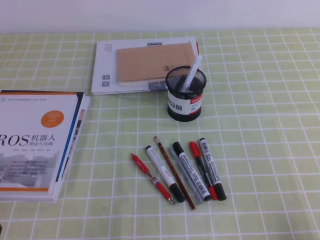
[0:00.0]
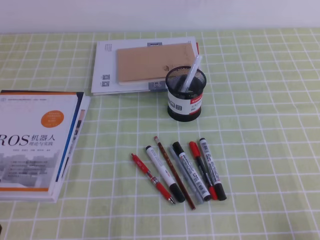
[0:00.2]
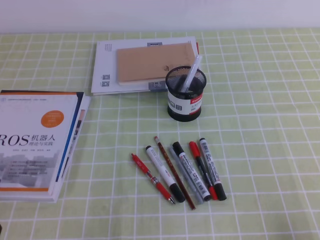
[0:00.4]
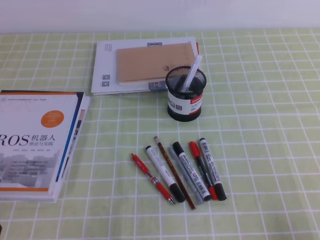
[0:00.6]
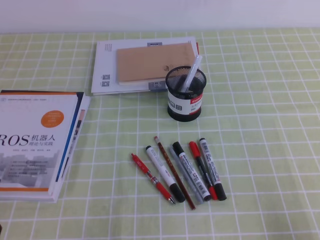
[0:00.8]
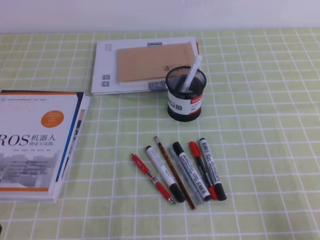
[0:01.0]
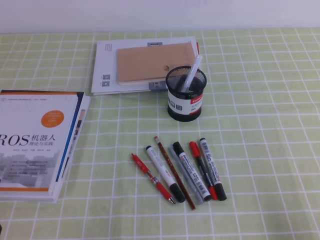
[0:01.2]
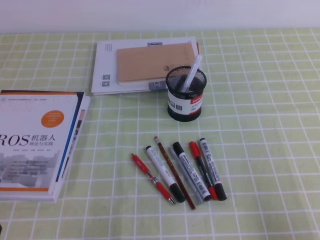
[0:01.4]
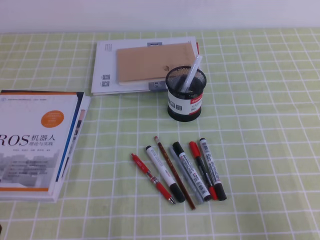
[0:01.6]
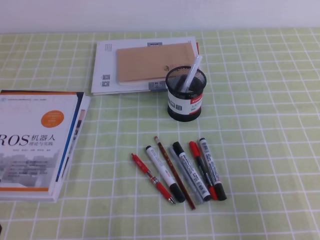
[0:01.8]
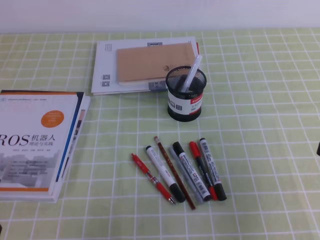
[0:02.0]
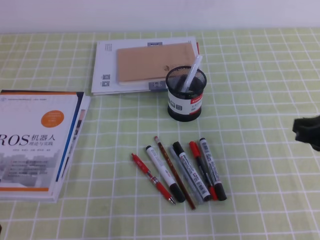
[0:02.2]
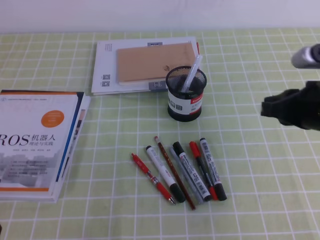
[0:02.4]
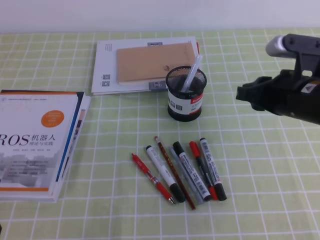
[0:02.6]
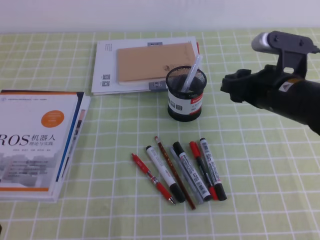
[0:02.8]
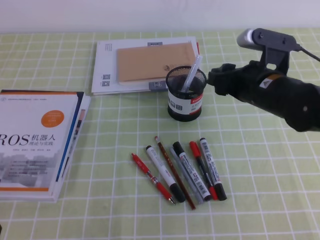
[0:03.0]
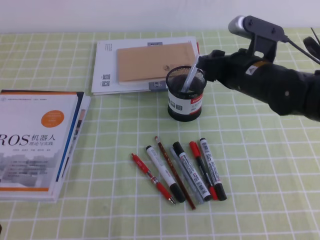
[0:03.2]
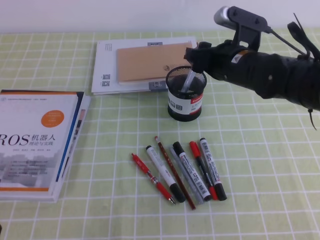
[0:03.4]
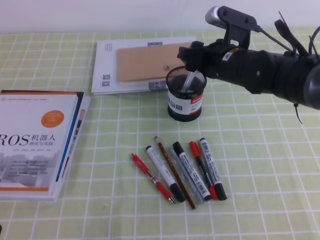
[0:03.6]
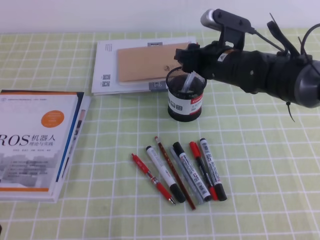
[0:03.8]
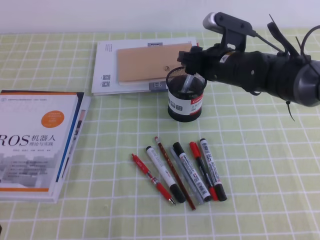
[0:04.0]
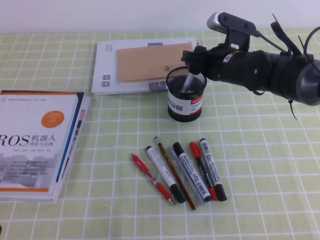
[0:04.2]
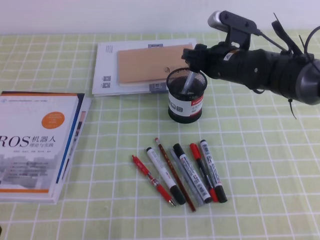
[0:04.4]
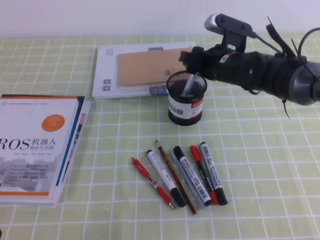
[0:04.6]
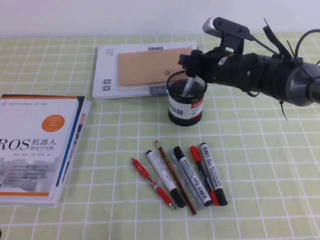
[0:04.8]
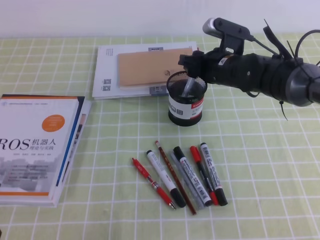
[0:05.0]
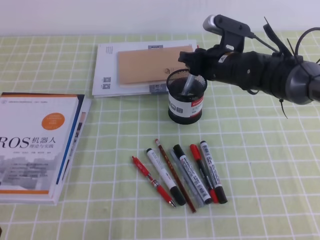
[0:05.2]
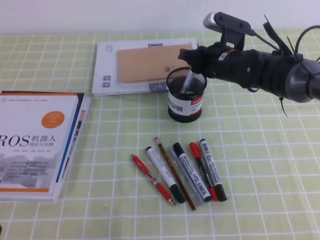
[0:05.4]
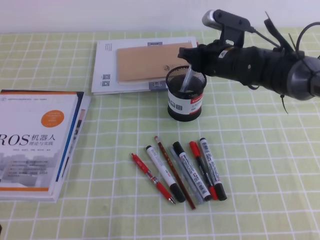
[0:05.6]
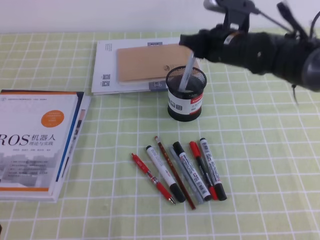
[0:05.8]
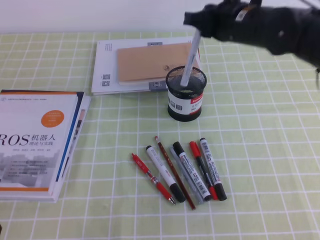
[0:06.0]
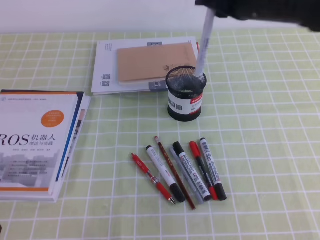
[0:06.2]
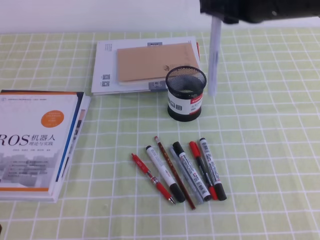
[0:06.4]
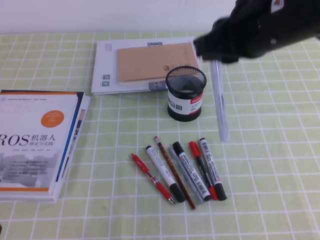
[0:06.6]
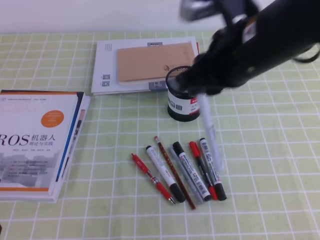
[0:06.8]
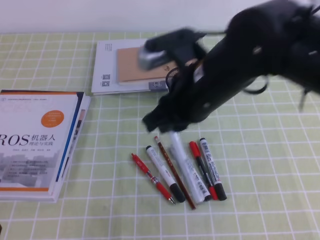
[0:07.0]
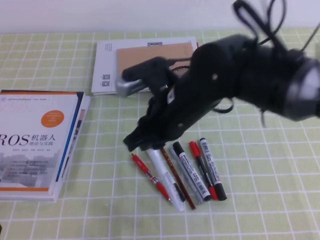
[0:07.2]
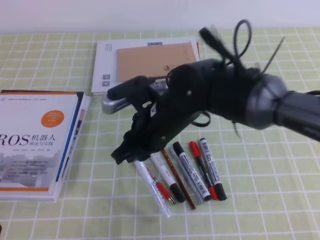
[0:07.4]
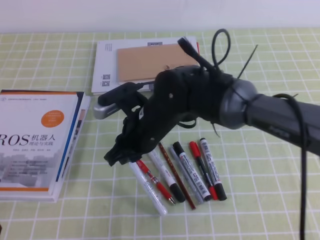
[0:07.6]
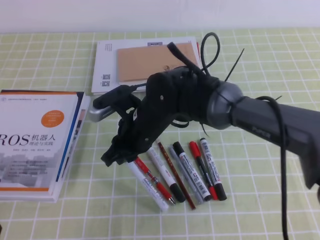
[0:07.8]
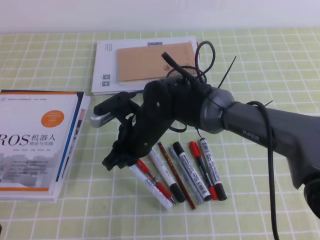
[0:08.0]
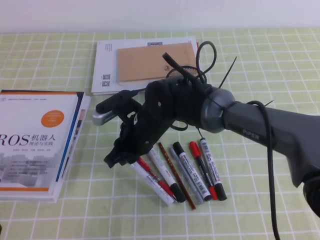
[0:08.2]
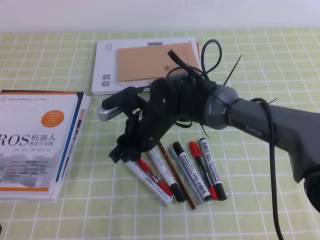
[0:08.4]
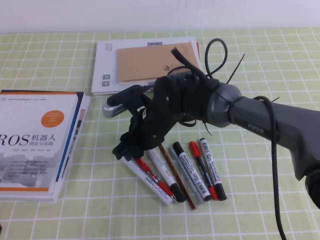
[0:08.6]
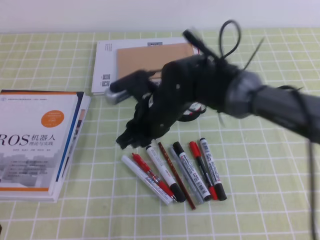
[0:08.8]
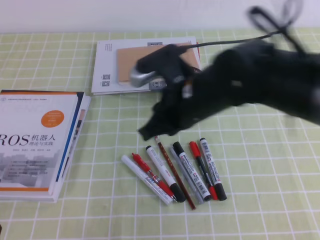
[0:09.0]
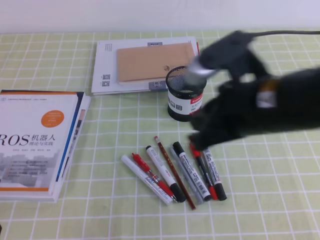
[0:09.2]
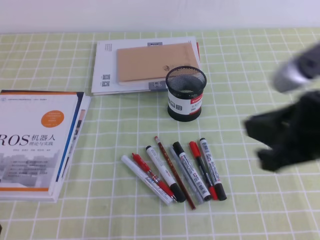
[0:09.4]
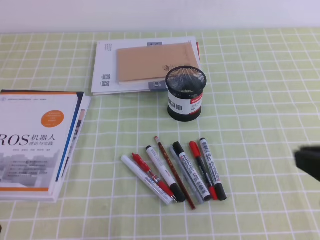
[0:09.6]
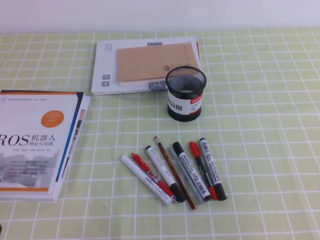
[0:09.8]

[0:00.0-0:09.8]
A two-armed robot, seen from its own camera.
1.4 to 2.8 s: The right gripper travels forward and to the left by some 30 cm, and opens.
2.8 to 4.2 s: The right gripper moves forward and to the left, approximately 15 cm.
4.2 to 5.6 s: The right gripper closes its fingers.
5.6 to 7.0 s: The right gripper goes some 20 cm backward and upward.
7.0 to 8.4 s: The right gripper moves downward, to the left and forward, some 20 cm.
8.4 to 9.8 s: The right gripper is displaced to the right, backward and upward by about 40 cm, and closes.

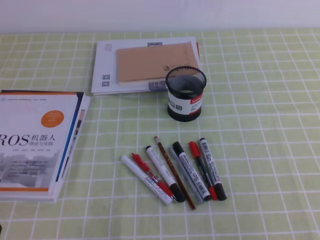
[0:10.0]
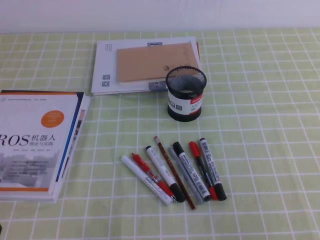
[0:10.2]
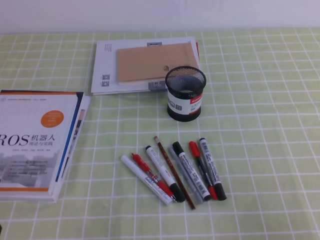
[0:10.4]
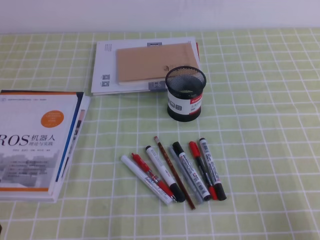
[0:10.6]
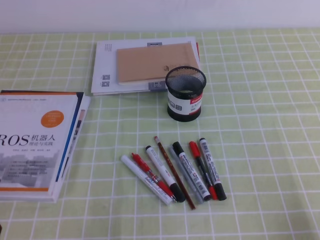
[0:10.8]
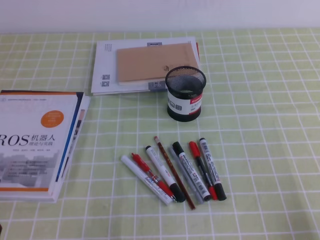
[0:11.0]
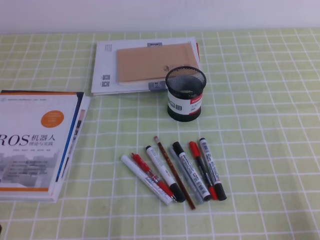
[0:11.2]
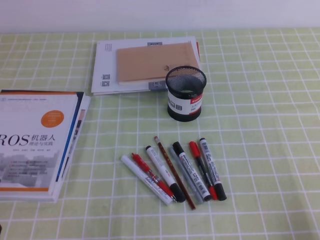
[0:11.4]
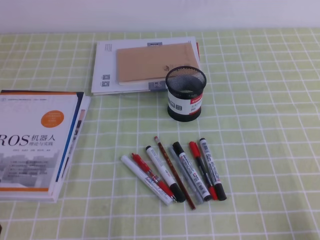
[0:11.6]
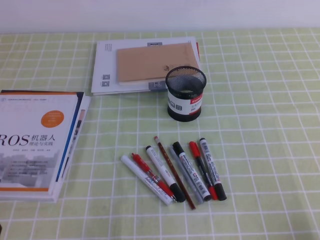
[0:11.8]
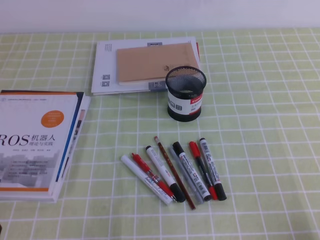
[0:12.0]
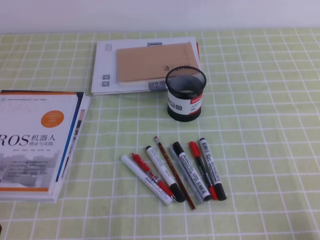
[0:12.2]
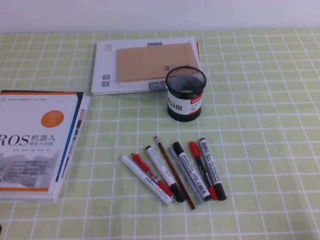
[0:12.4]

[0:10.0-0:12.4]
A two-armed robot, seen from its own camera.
10.0 to 11.2 s: The right gripper goes about 10 cm downward and to the right.

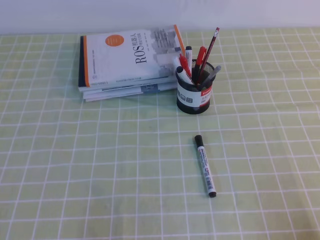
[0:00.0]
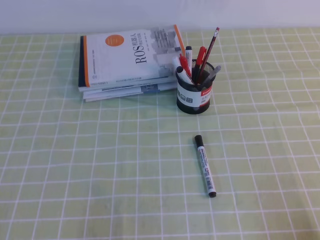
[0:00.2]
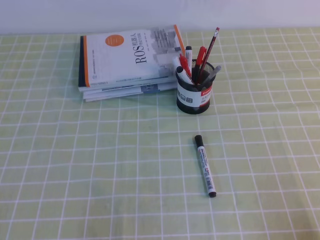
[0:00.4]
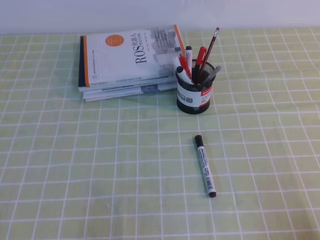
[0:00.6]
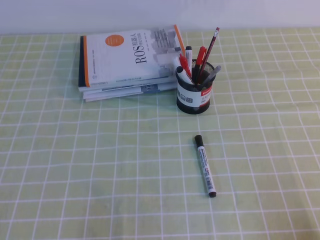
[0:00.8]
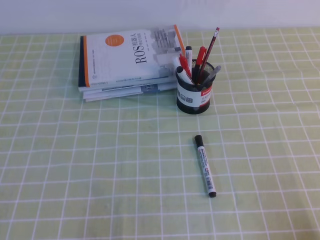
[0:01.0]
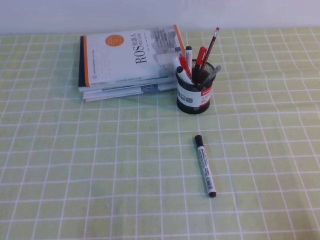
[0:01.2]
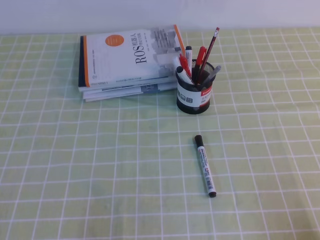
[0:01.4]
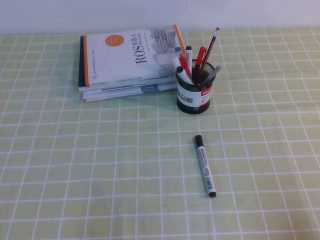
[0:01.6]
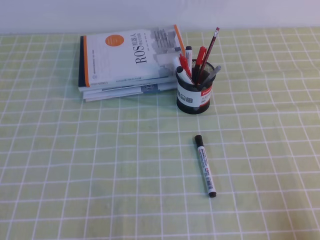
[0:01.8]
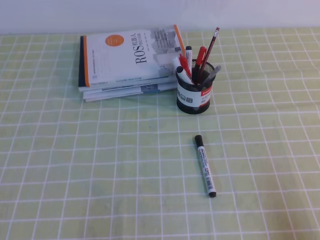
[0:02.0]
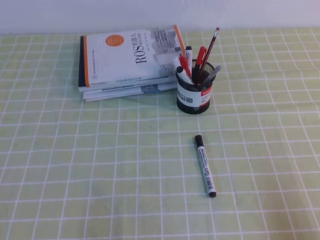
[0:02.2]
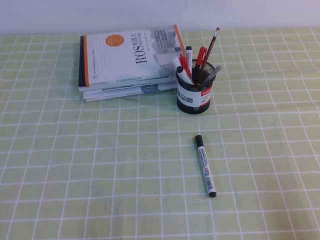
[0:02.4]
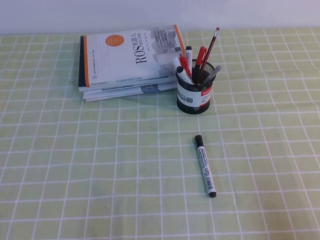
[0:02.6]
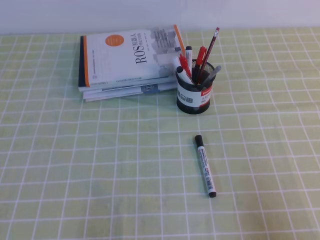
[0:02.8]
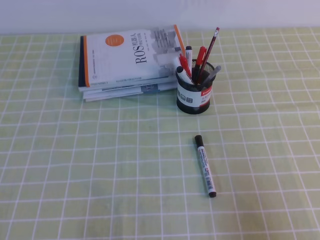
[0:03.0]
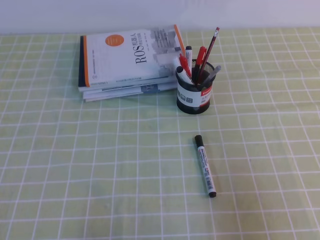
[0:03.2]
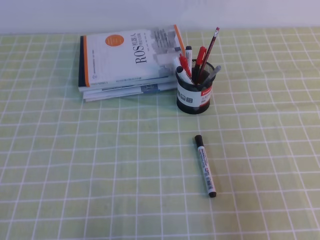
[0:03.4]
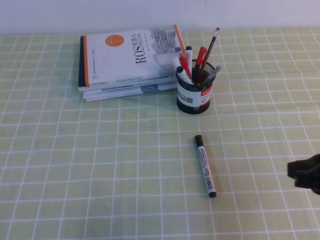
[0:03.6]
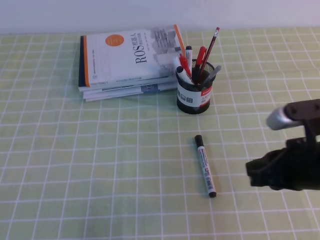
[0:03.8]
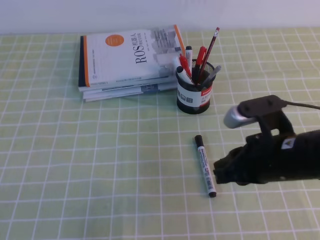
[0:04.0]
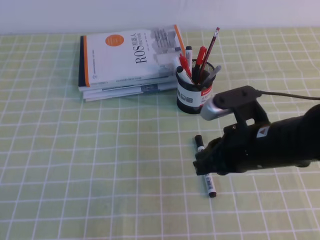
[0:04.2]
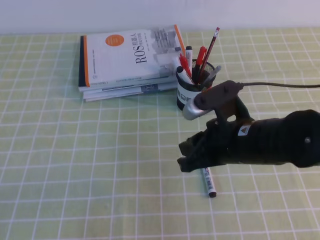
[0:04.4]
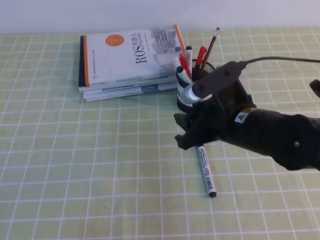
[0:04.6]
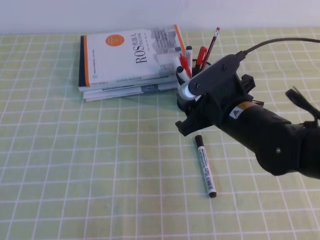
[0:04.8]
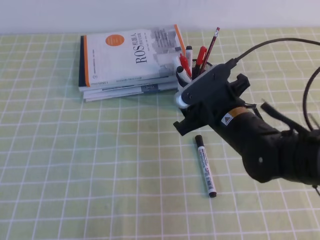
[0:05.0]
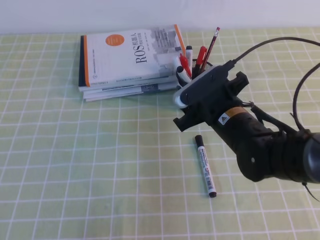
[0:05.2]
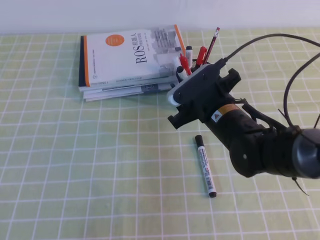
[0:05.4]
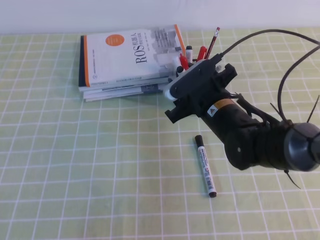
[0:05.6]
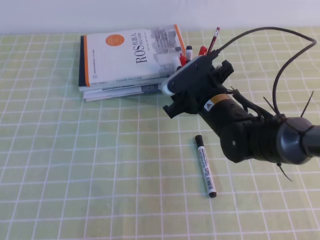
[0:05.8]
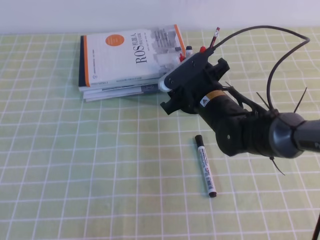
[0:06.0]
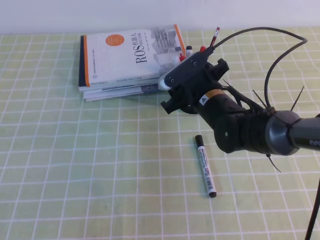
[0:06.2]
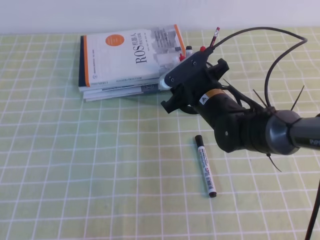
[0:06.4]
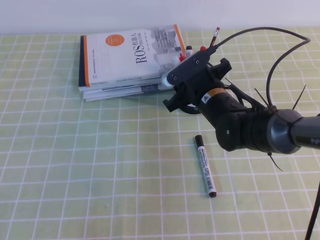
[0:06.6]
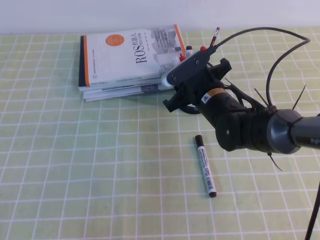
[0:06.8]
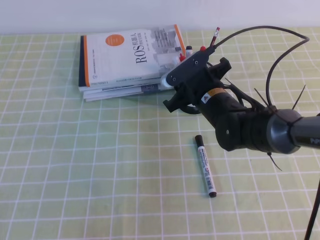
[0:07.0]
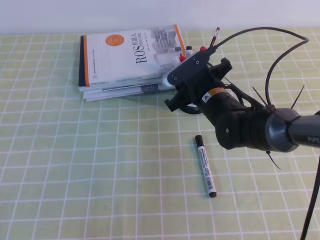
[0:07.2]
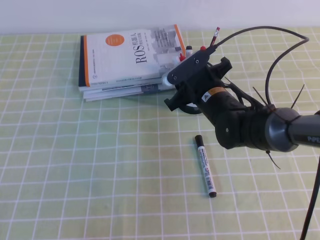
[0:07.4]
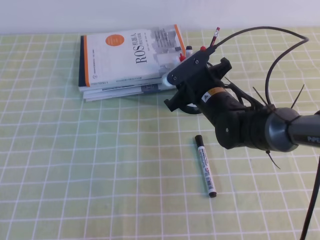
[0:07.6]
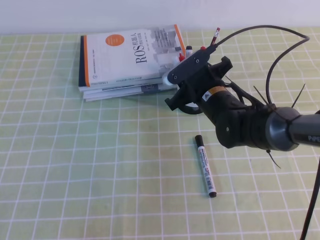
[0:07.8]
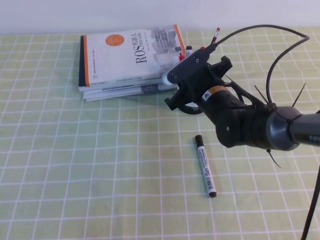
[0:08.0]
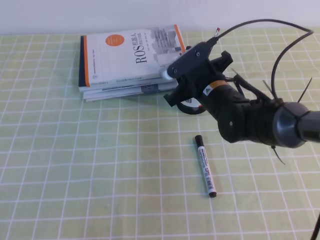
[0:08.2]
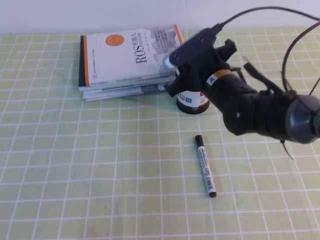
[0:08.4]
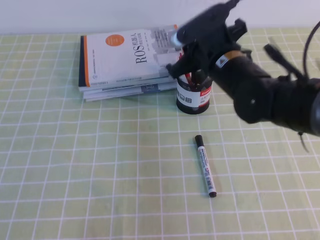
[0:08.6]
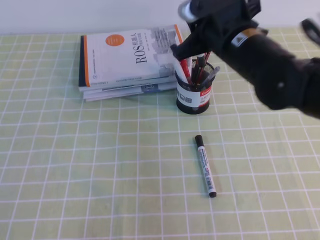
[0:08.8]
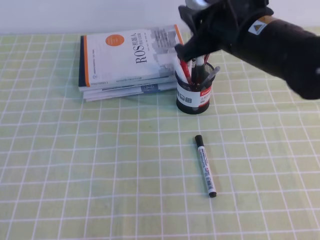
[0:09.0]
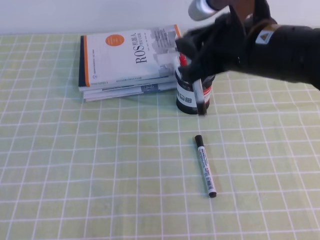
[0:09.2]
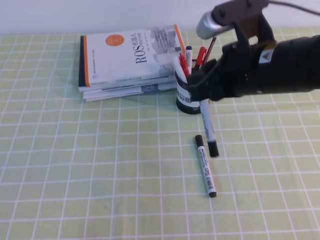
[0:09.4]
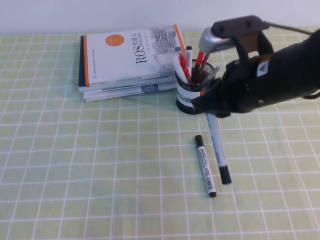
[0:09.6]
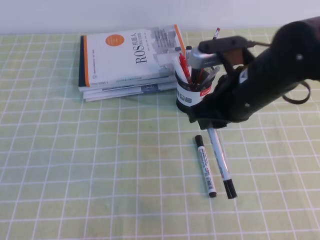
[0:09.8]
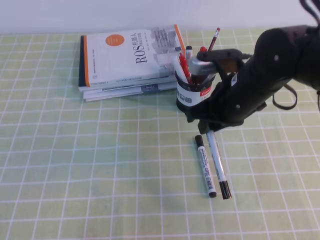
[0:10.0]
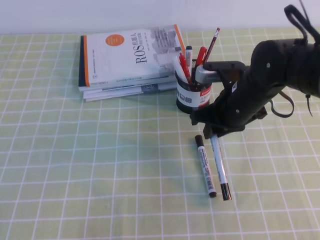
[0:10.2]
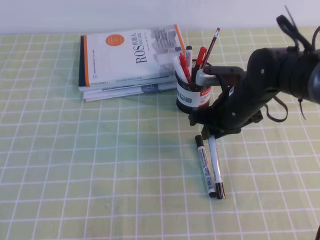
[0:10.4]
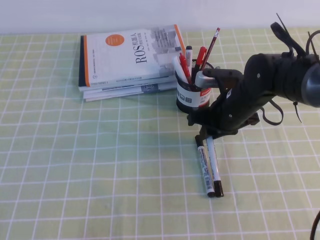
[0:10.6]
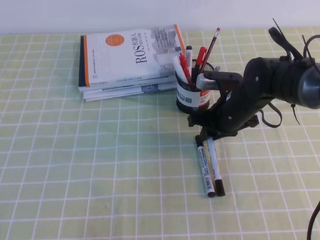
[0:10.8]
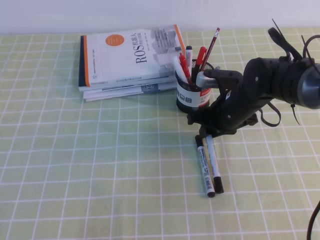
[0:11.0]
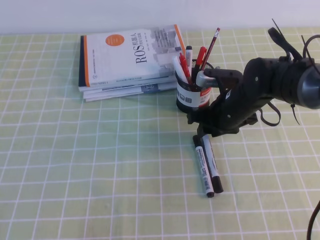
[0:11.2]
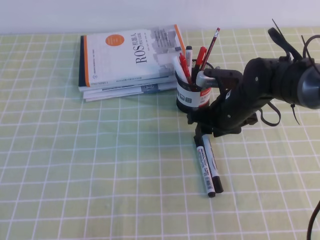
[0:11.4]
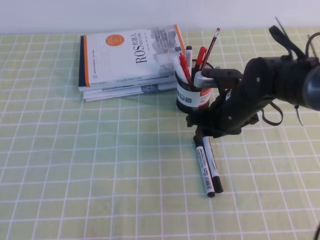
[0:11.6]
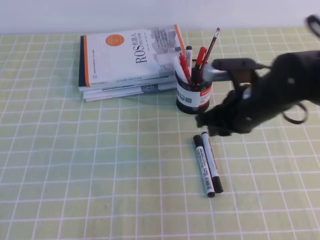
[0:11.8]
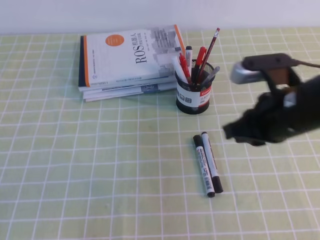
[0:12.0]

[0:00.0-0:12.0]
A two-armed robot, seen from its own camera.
1.6 to 3.0 s: The right gripper travels upward by roughly 5 cm.
3.0 to 4.4 s: The right gripper goes roughly 25 cm to the left and forward.
4.4 to 6.0 s: The right gripper moves forward, some 10 cm, and opens up.
6.0 to 7.6 s: The right gripper closes.
7.6 to 9.0 s: The right gripper heads upward and backward, covering roughly 15 cm.
9.0 to 10.4 s: The right gripper travels downward by roughly 15 cm.
10.4 to 12.0 s: The right gripper is displaced backward and upward by roughly 10 cm, and opens, then closes once more.
